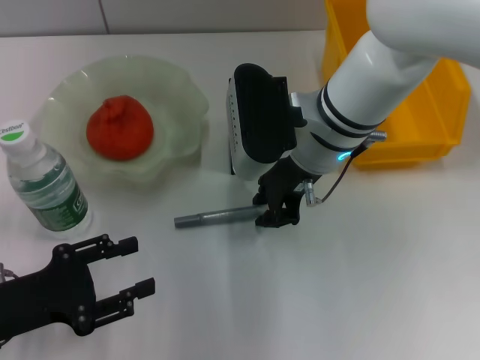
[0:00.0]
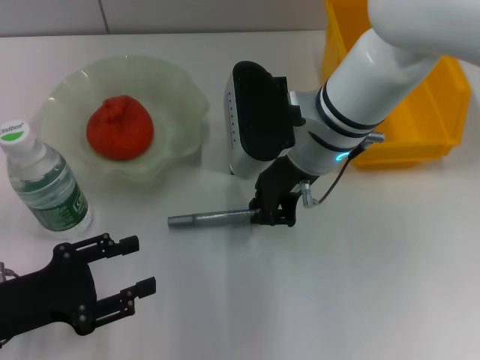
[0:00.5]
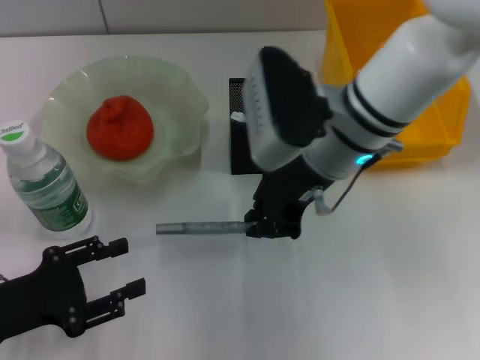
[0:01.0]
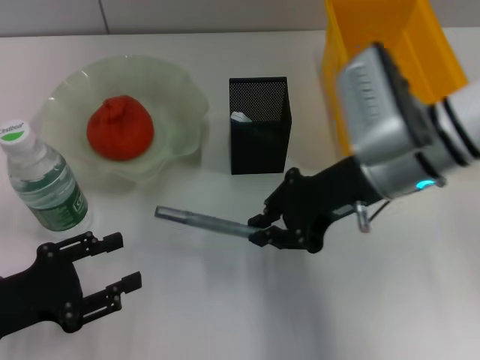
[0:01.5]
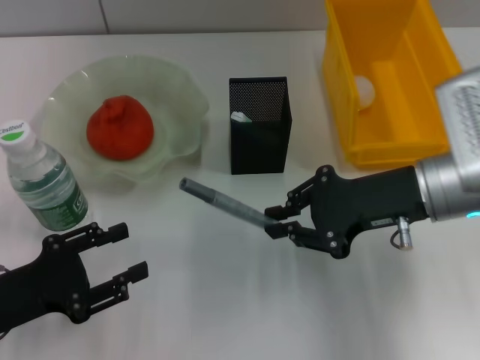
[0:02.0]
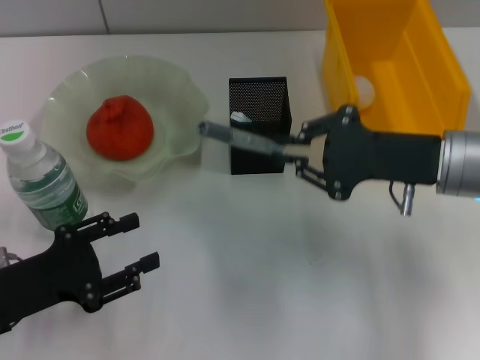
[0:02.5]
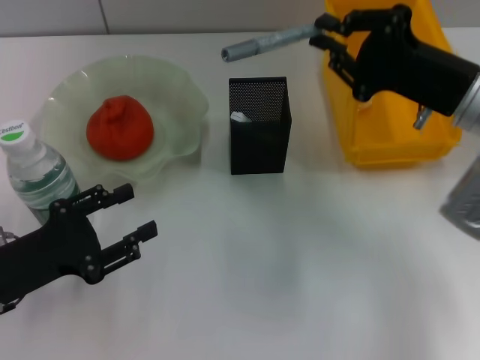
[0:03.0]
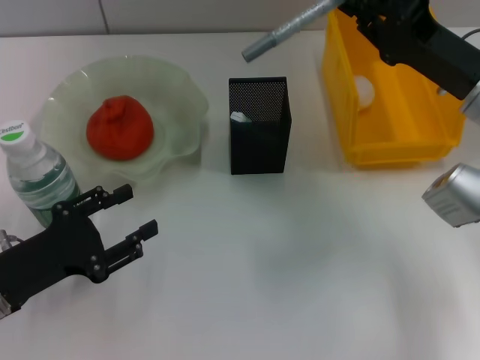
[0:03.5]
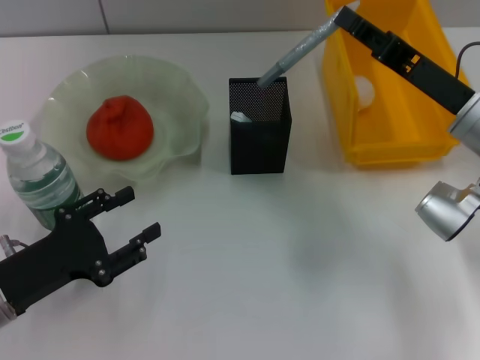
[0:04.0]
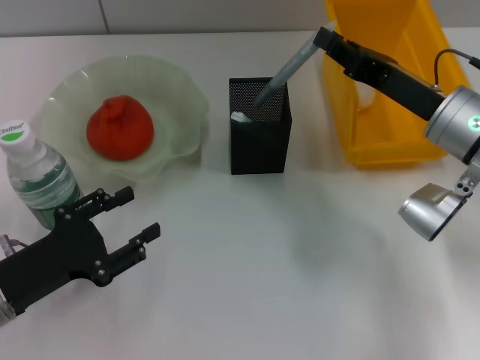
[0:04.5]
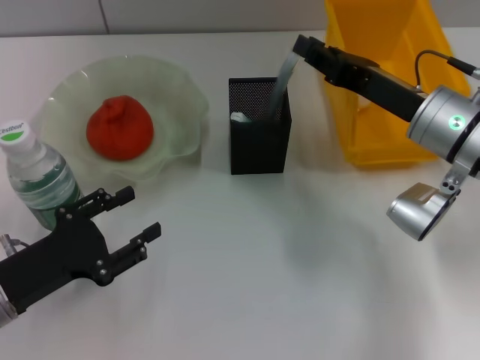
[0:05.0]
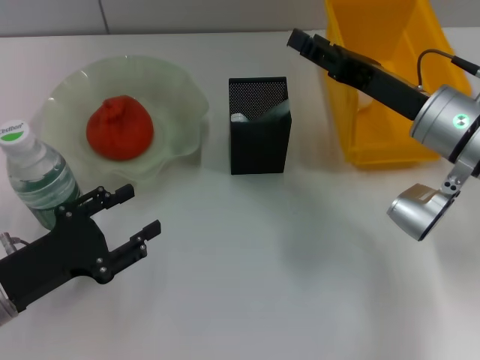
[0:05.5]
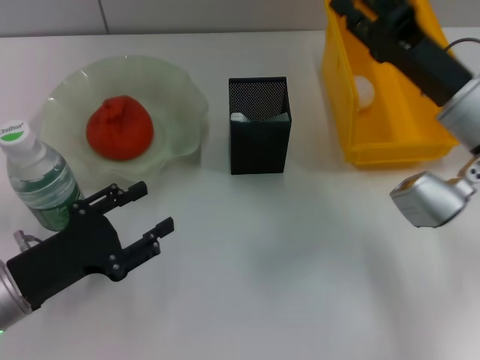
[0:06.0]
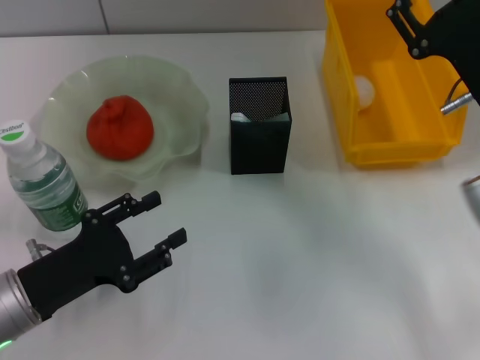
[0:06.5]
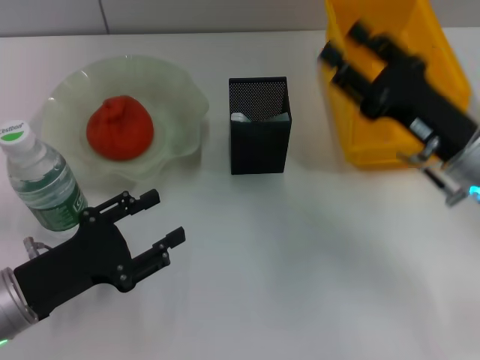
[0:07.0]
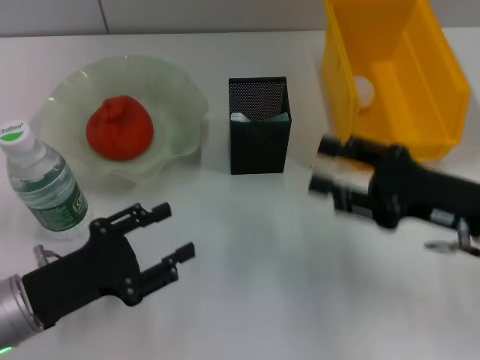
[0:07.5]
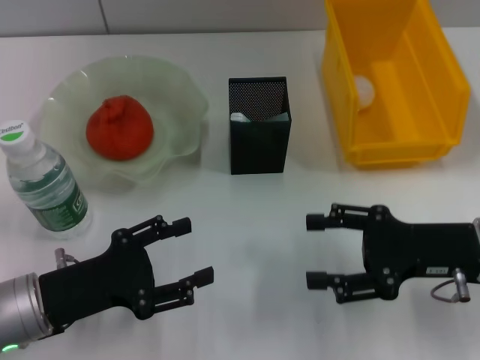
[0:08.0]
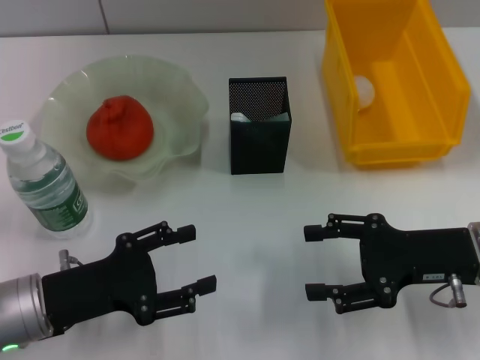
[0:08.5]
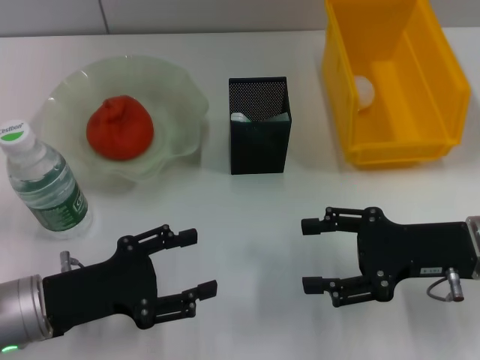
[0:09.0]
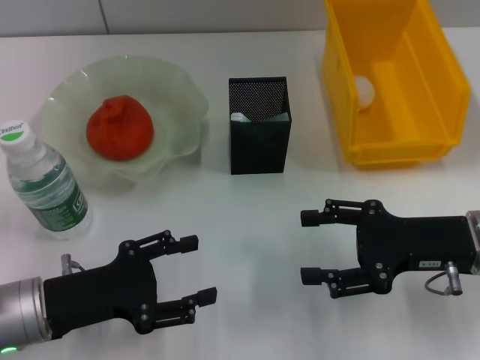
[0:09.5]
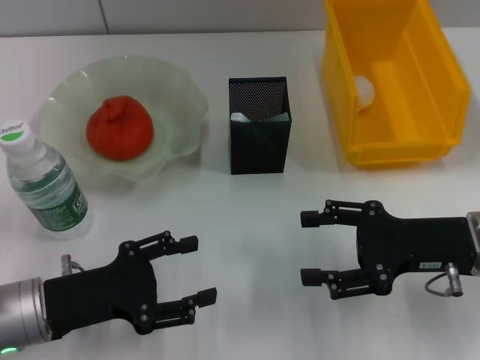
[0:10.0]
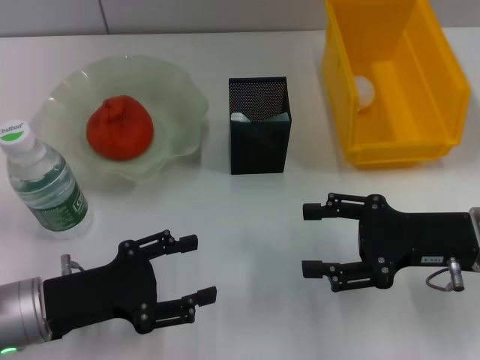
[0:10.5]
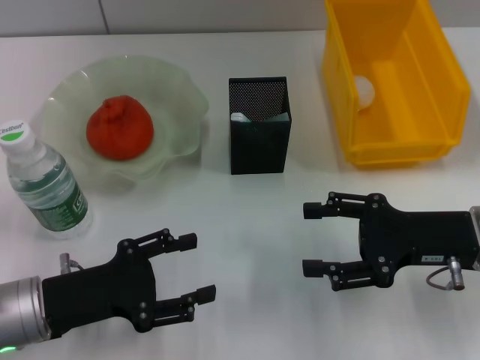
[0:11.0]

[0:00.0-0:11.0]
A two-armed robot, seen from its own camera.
Step, 0:00.5 to 0:05.5: Place the gray glue into the pen holder with the right hand.
0:00.0 to 0:02.0: The right gripper shifts about 15 cm to the right and backward.
0:03.5 to 0:05.5: The right gripper opens up.
0:05.5 to 0:07.5: The right gripper shifts roughly 5 cm backward.
0:09.0 to 0:11.0: Both grippers stay about where they are.
